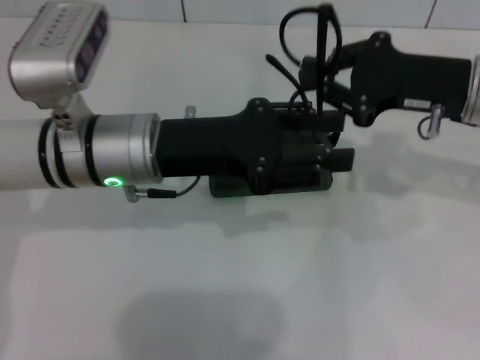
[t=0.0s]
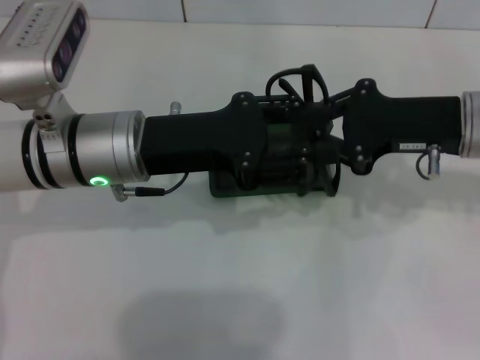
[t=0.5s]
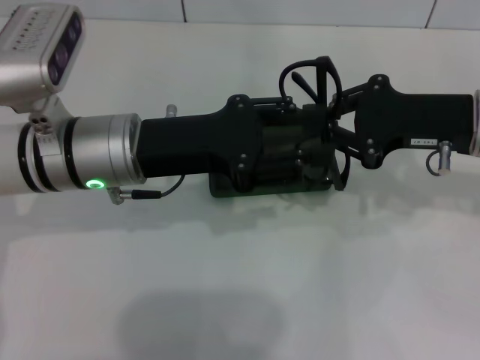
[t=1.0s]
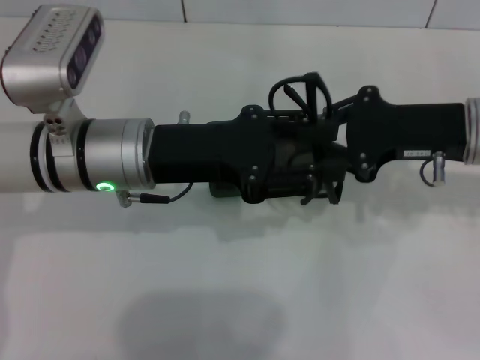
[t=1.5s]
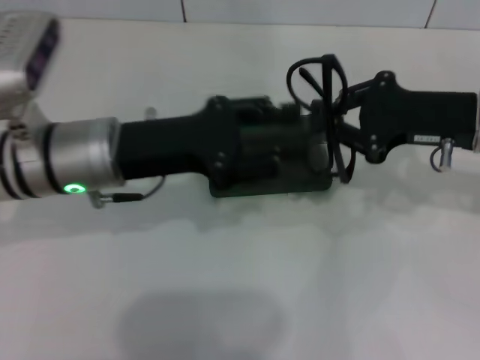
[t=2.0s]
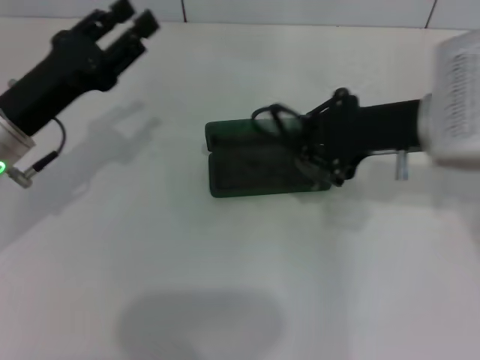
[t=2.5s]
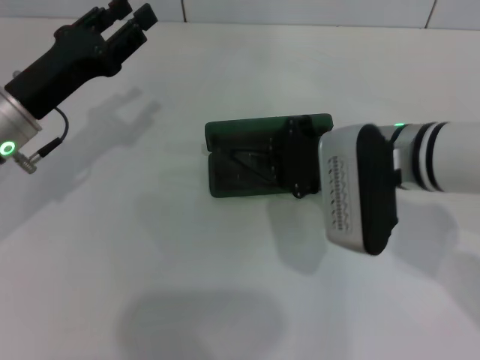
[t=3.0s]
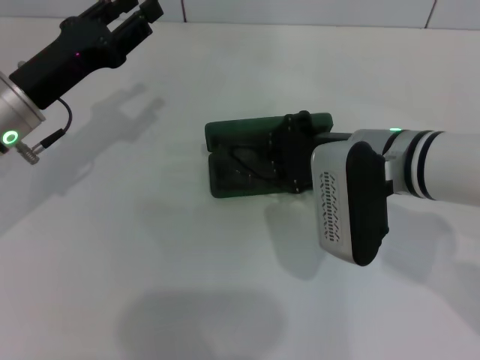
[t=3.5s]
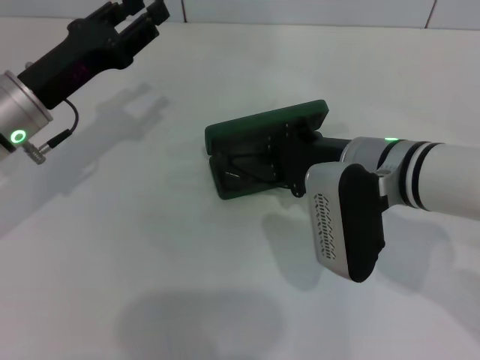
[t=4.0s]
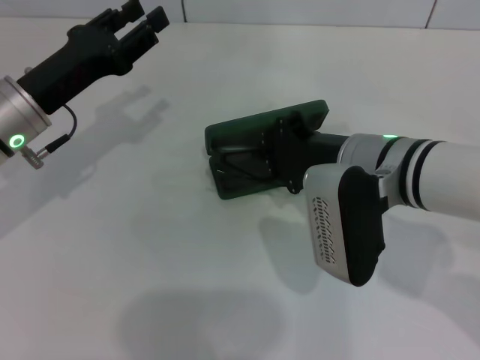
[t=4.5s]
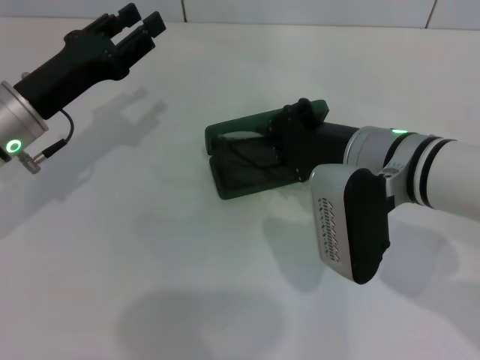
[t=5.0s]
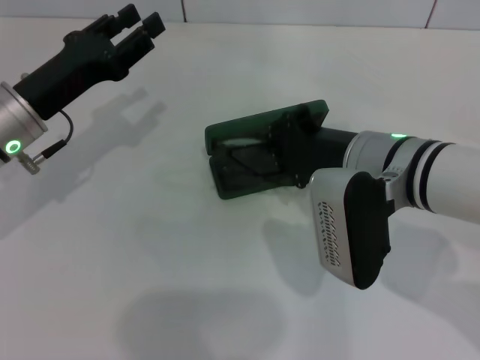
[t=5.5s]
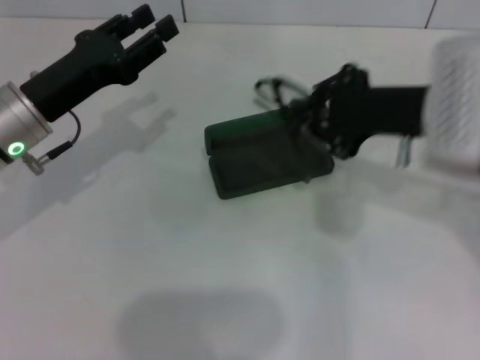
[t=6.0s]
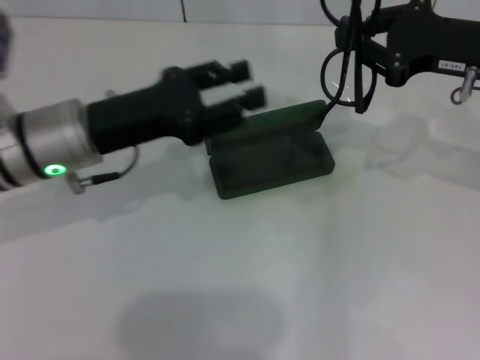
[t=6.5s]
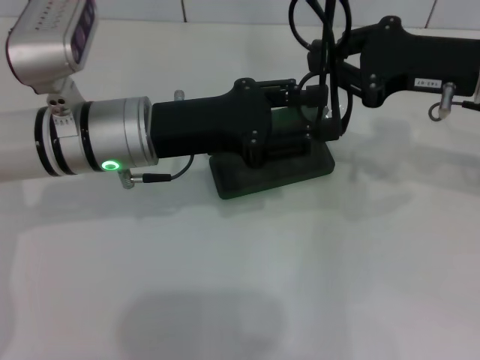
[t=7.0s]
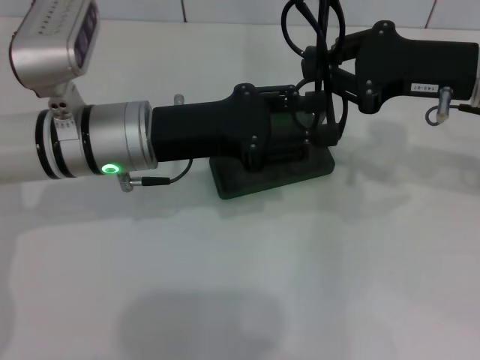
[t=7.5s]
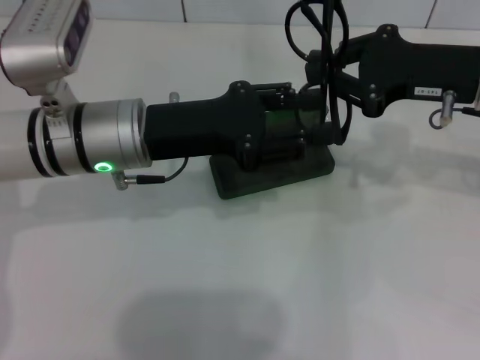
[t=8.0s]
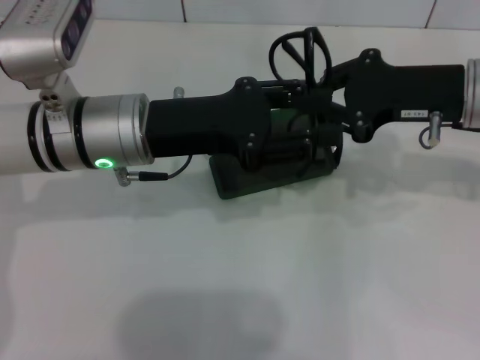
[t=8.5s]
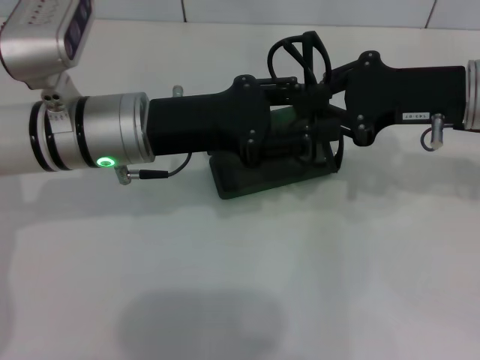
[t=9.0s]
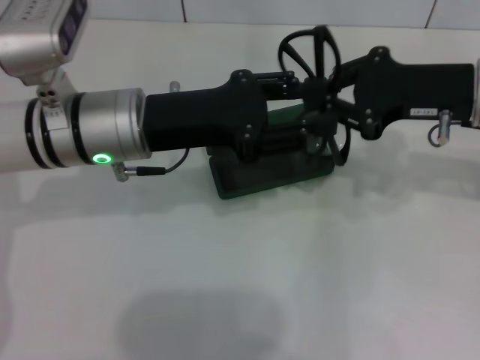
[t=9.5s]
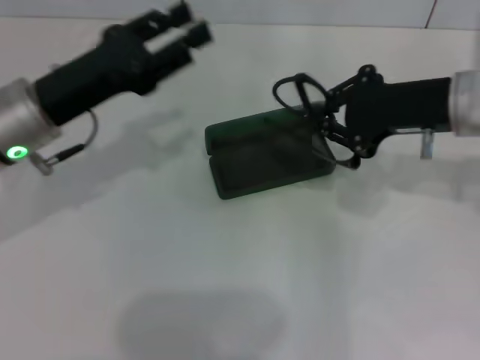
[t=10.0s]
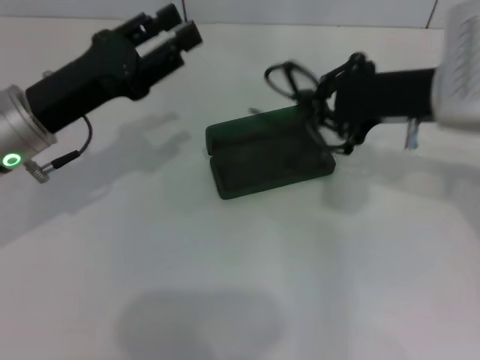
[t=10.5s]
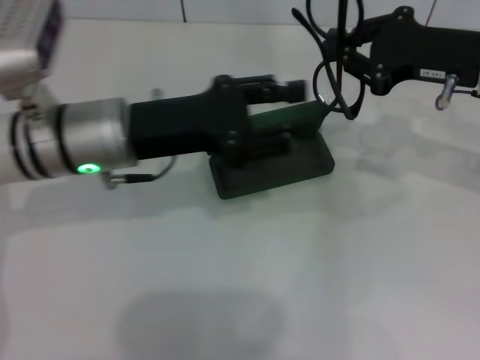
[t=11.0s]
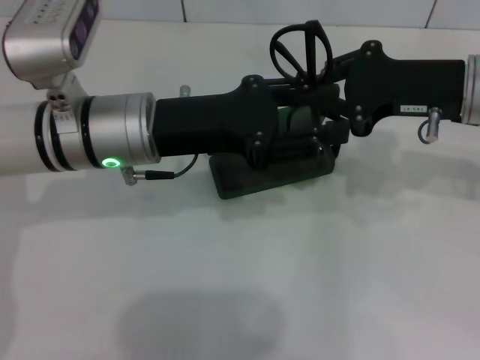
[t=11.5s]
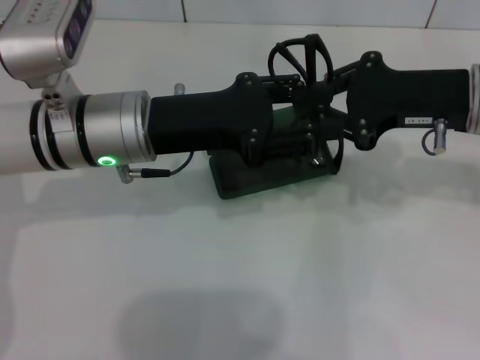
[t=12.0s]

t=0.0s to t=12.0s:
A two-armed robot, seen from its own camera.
t=2.0s to t=4.0s: The right gripper is displaced to the left by roughly 10 cm, while the left gripper is displaced to the left by some 5 cm.
t=4.0s to t=6.0s: The right gripper heads to the right and upward, covering some 10 cm.
t=6.0s to t=8.0s: The right gripper changes place by some 5 cm. Meanwhile the left gripper moves to the right, some 10 cm.
t=8.0s to t=10.0s: The left gripper moves to the left, some 10 cm.
t=10.0s to t=12.0s: The left gripper is displaced to the right by approximately 10 cm.

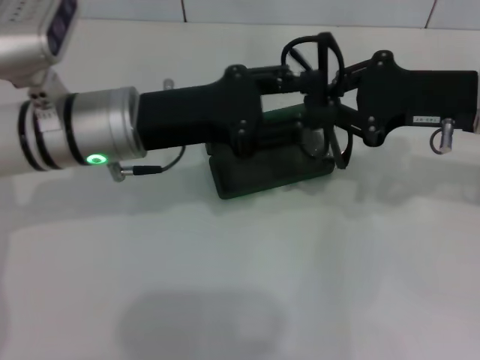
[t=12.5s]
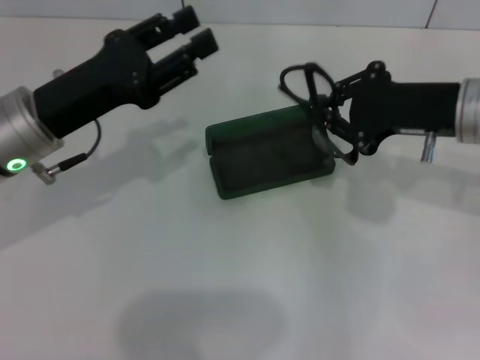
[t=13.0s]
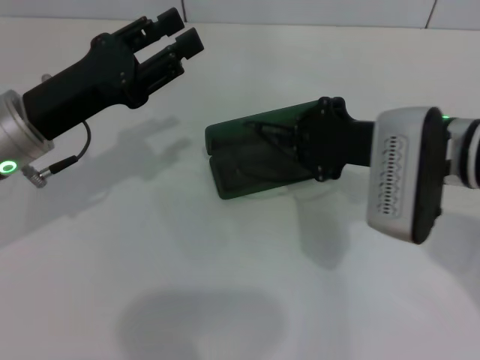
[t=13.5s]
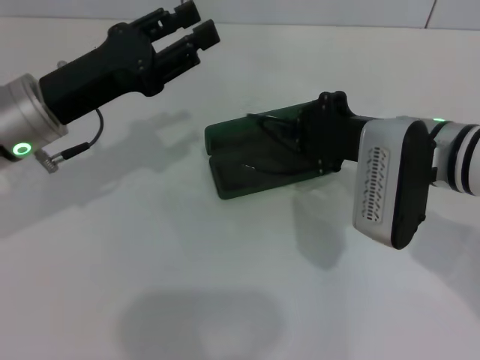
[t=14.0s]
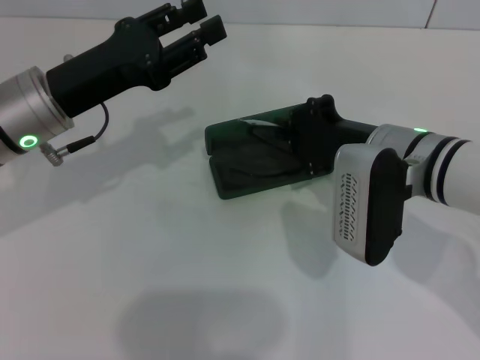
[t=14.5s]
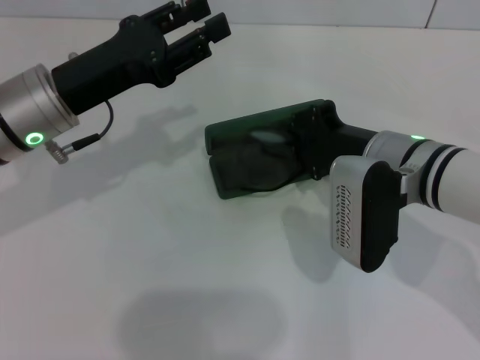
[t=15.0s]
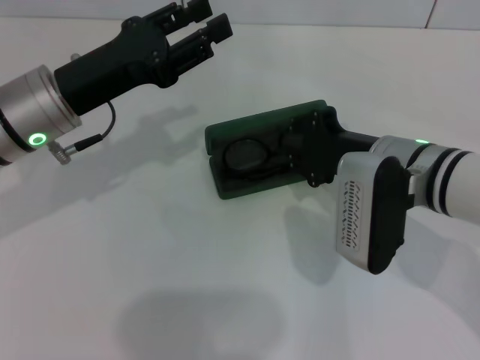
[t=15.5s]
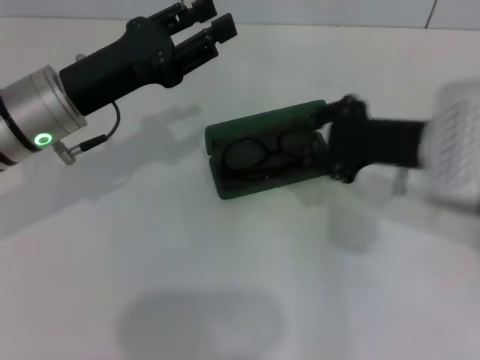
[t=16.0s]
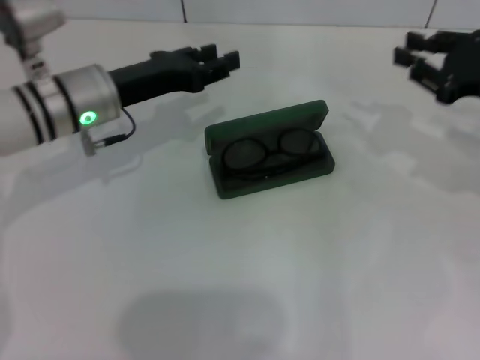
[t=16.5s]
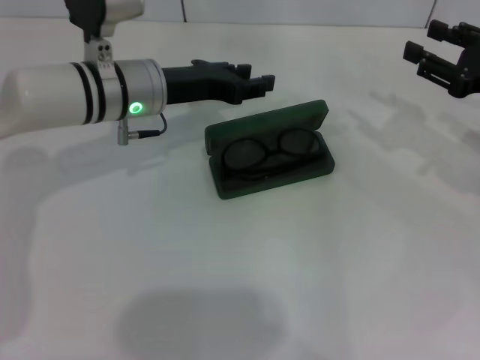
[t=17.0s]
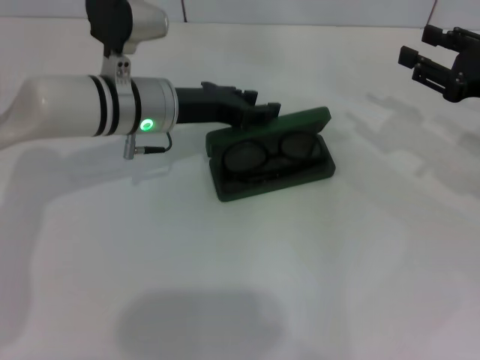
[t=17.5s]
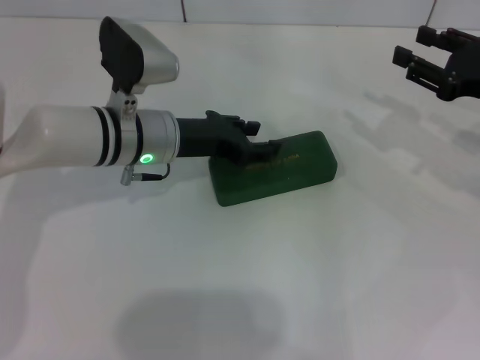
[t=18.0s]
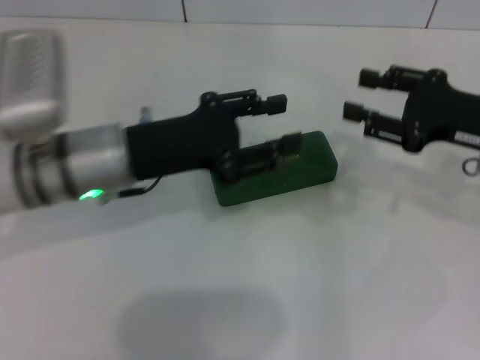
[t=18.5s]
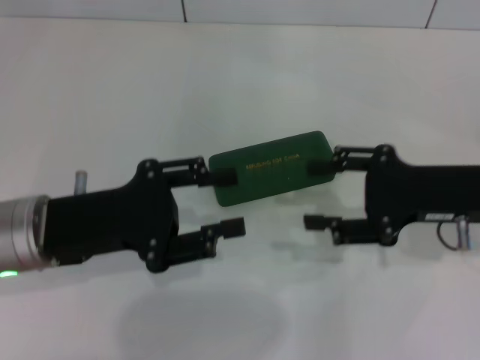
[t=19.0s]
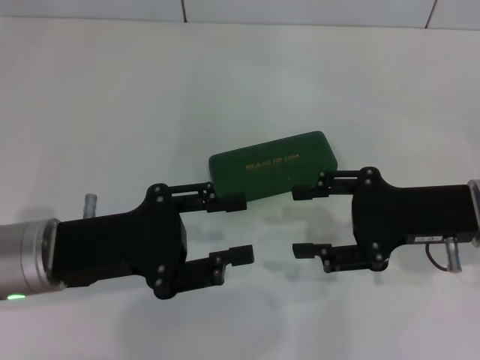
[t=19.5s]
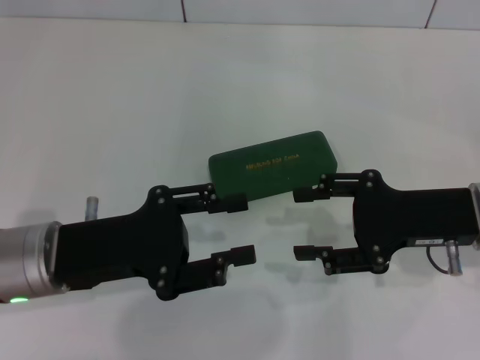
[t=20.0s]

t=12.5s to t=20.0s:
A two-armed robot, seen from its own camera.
Step, t=12.5s to t=15.5s: Put the glasses into the case with your right hand.
Step, t=16.0s to t=18.0s: Close the glasses case with your left hand.
t=12.5s to t=14.5s: The left gripper travels to the left by some 5 cm. Meanwhile the right gripper heads to the left and downward, covering some 10 cm.
t=14.5s to t=16.5s: The left gripper ends up about 5 cm from where it was; the right gripper goes some 15 cm to the right.
t=16.5s to t=18.0s: The left gripper travels to the right by roughly 5 cm.
t=18.0s to t=20.0s: The right gripper goes approximately 10 cm to the left and backward. The left gripper is displaced backward and to the left by about 15 cm.

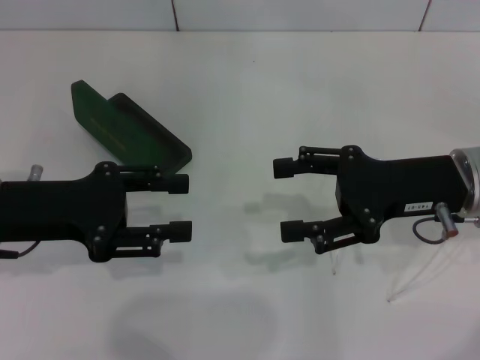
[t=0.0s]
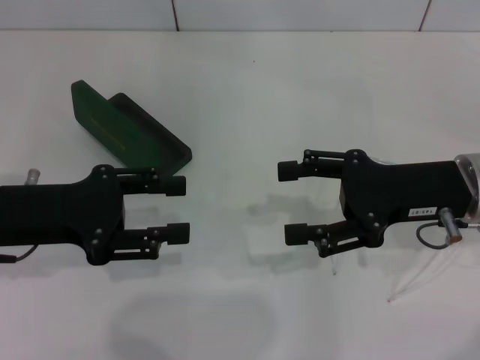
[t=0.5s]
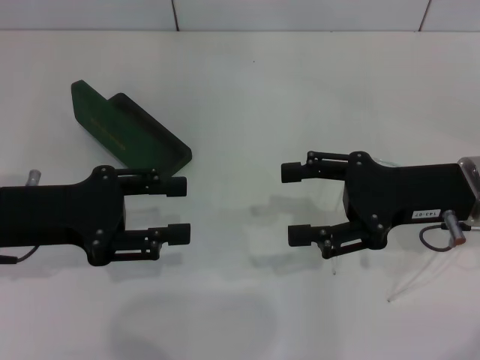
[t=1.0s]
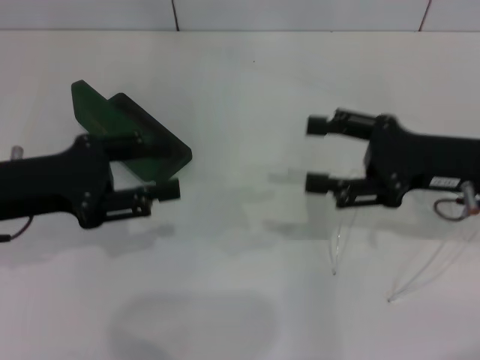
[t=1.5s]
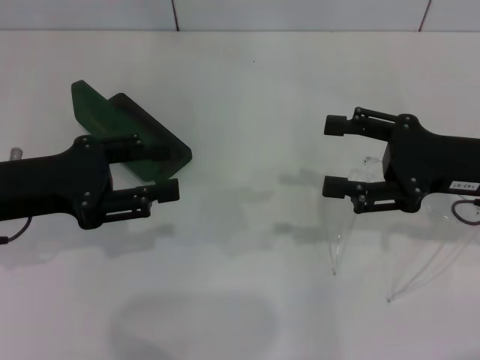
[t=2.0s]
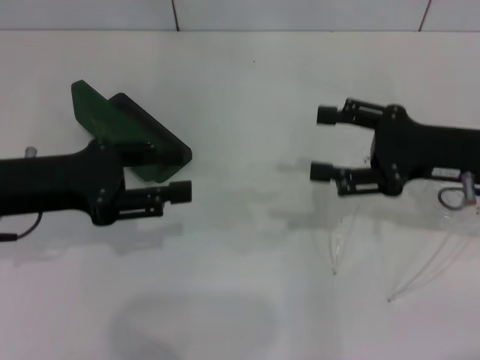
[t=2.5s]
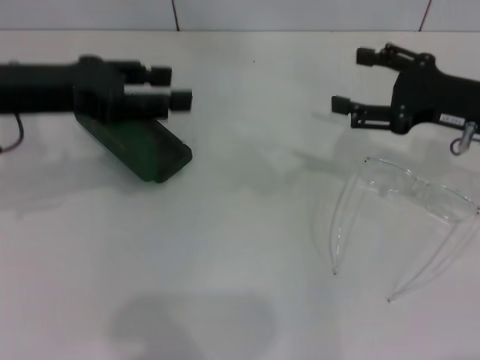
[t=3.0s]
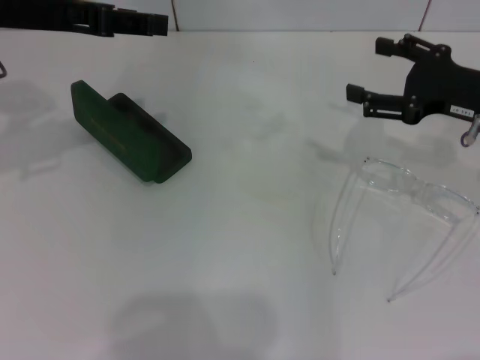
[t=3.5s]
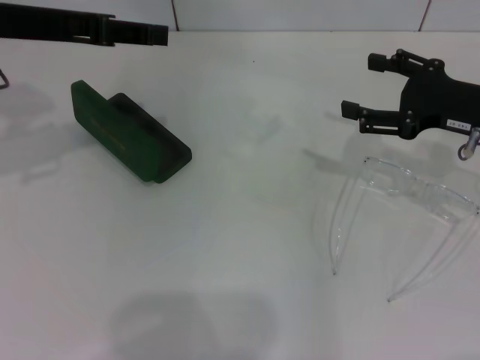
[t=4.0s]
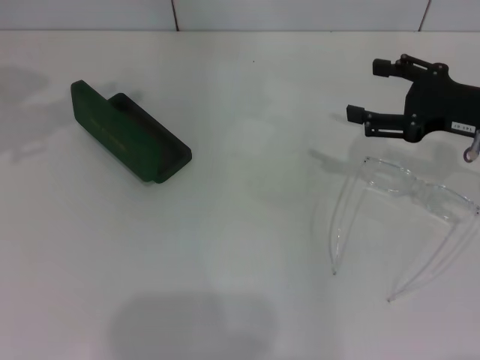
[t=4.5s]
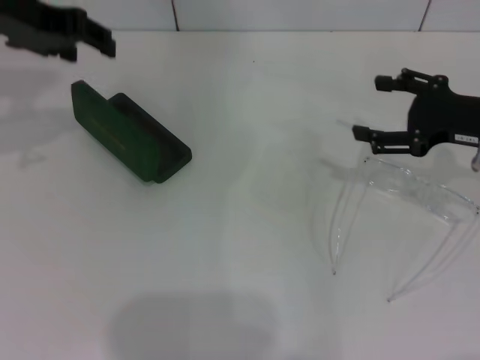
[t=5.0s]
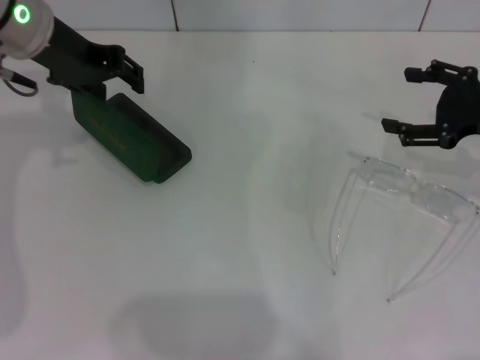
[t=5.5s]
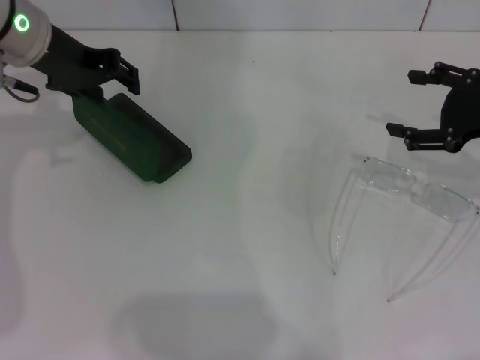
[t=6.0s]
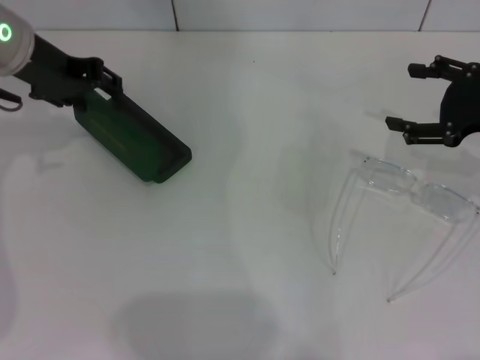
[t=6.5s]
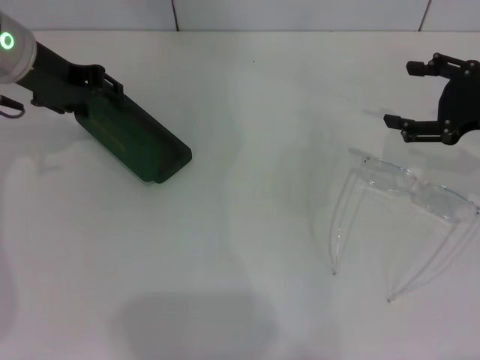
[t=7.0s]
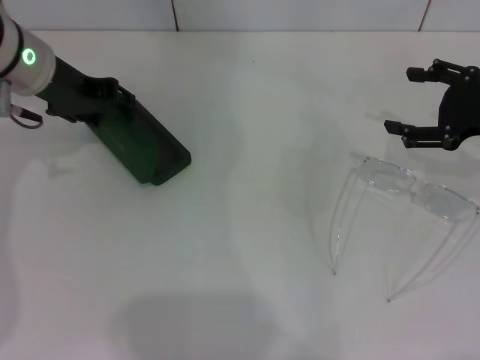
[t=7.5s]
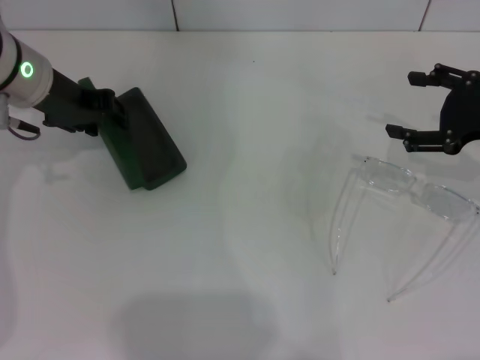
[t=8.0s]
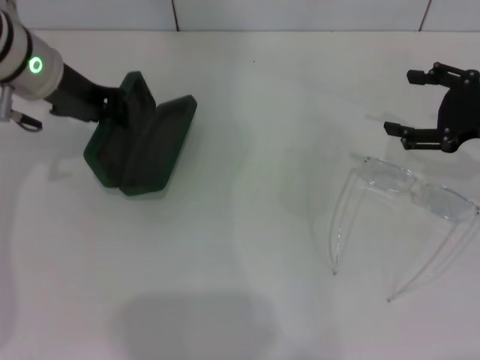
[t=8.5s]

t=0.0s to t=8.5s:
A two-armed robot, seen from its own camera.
Step, t=0.0s to t=8.0s: Grab the glasses case with your left hand.
t=0.0s to t=2.0s: The grippers stay close to where they were, moving slightly.
t=2.0s to t=4.0s: The left gripper is displaced upward and forward by some 15 cm.
t=4.0s to t=6.5s: The left gripper shifts by some 5 cm.
t=6.5s to t=8.5s: The left gripper closes up.
